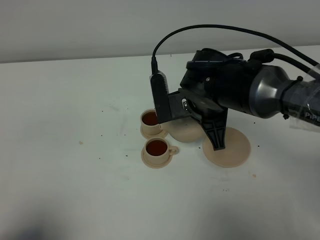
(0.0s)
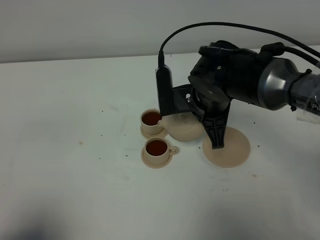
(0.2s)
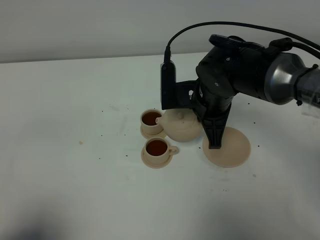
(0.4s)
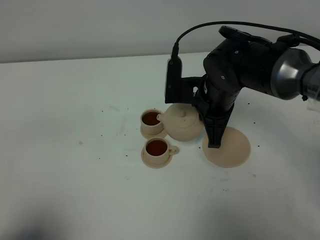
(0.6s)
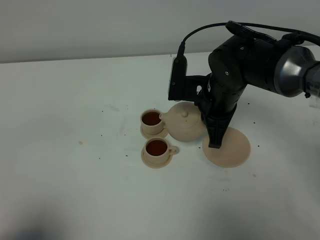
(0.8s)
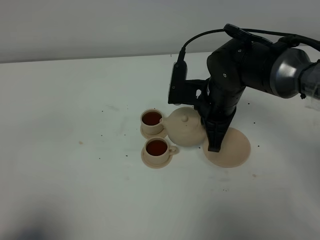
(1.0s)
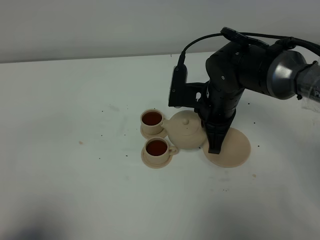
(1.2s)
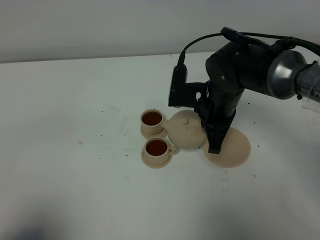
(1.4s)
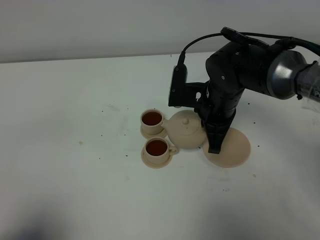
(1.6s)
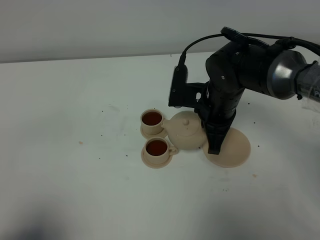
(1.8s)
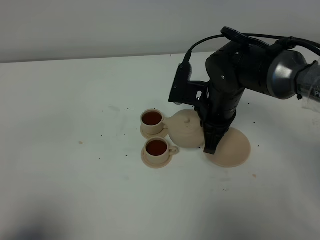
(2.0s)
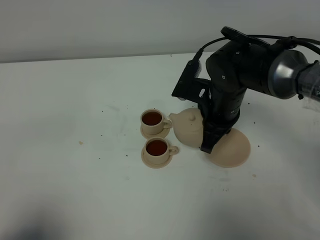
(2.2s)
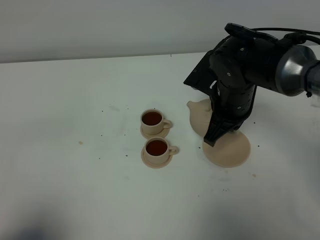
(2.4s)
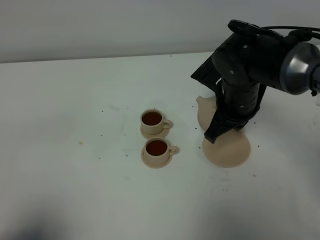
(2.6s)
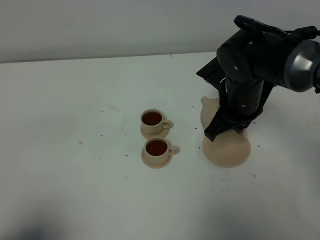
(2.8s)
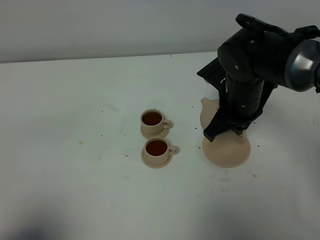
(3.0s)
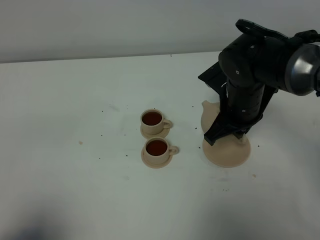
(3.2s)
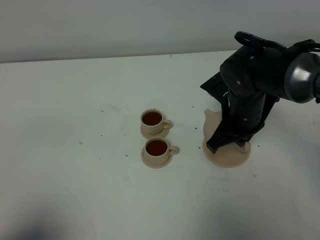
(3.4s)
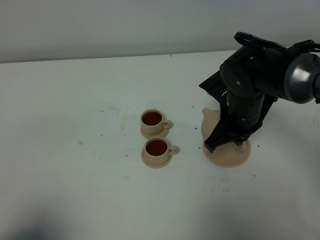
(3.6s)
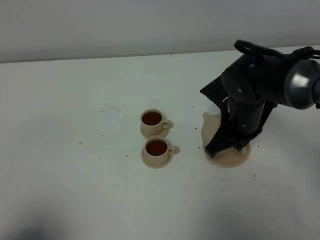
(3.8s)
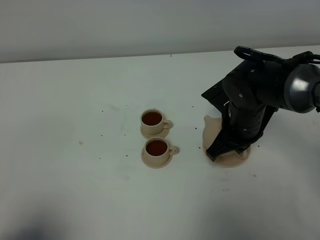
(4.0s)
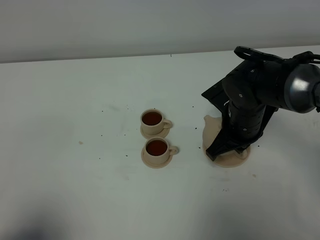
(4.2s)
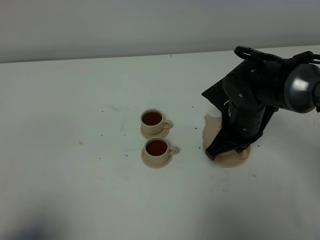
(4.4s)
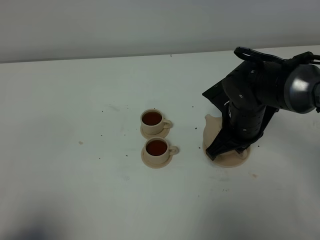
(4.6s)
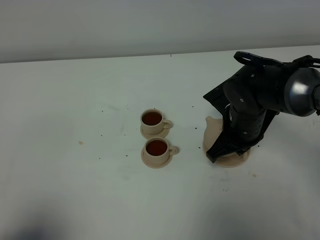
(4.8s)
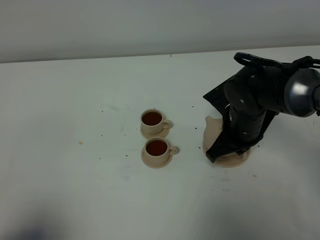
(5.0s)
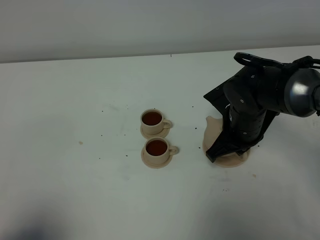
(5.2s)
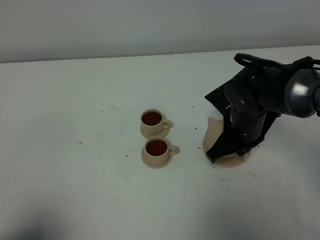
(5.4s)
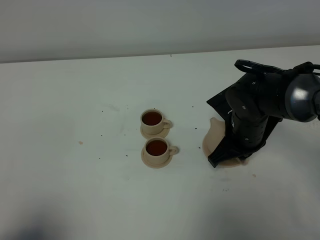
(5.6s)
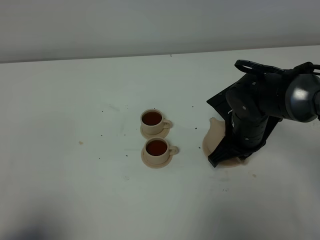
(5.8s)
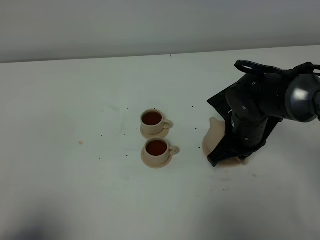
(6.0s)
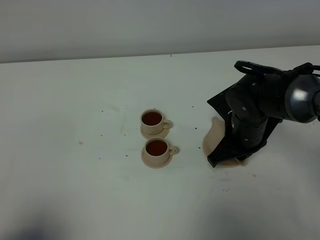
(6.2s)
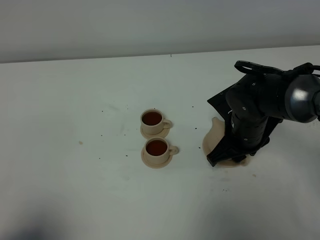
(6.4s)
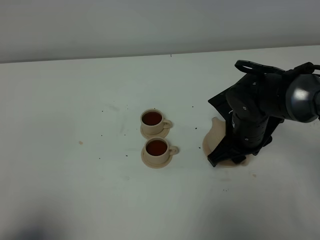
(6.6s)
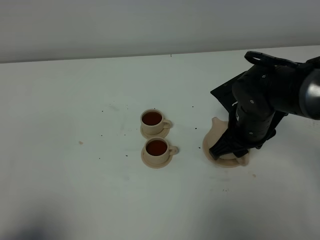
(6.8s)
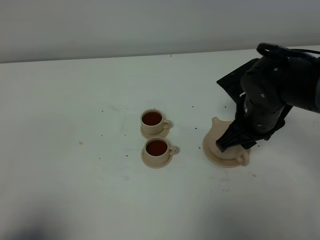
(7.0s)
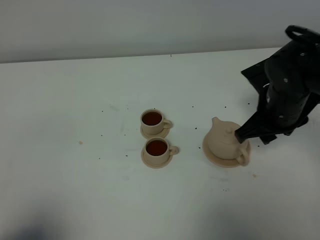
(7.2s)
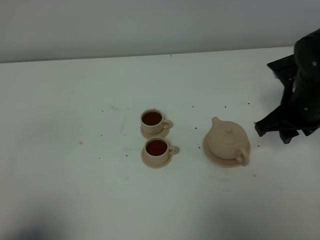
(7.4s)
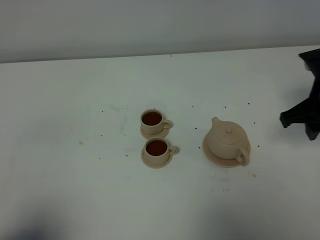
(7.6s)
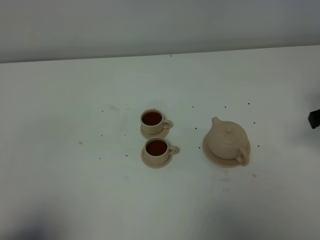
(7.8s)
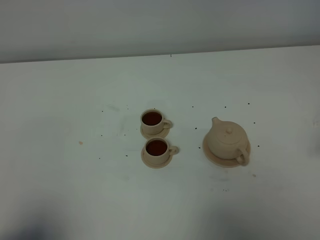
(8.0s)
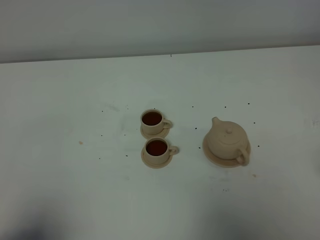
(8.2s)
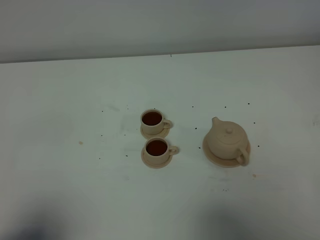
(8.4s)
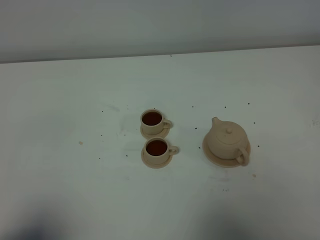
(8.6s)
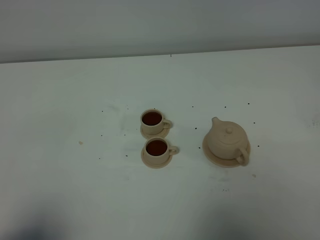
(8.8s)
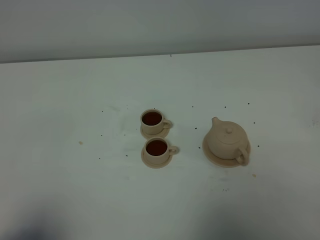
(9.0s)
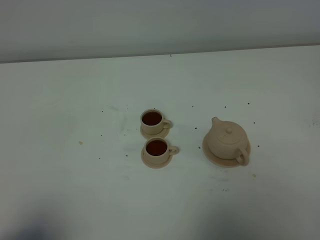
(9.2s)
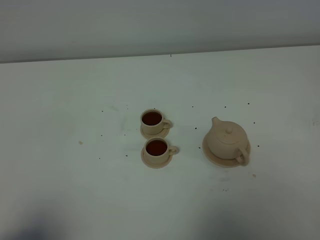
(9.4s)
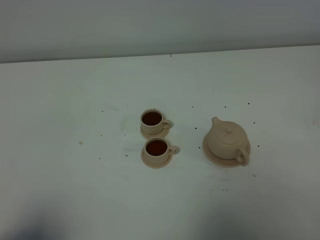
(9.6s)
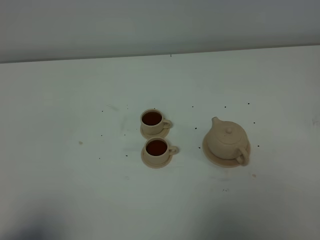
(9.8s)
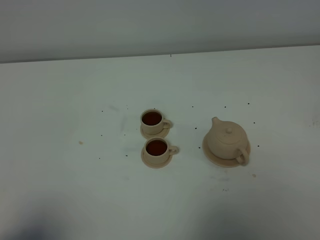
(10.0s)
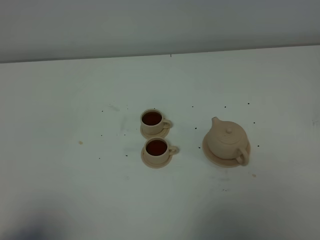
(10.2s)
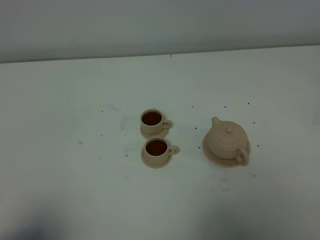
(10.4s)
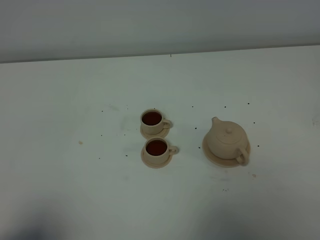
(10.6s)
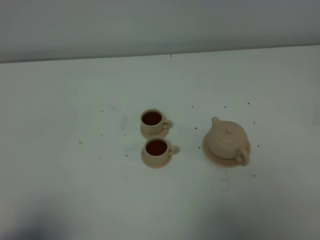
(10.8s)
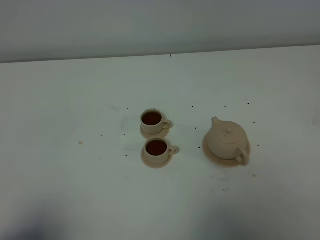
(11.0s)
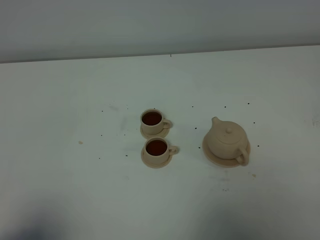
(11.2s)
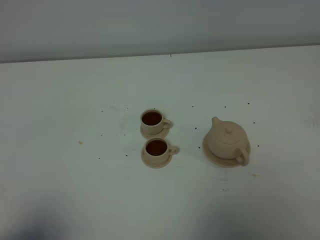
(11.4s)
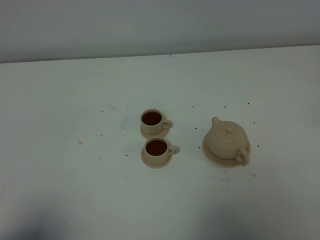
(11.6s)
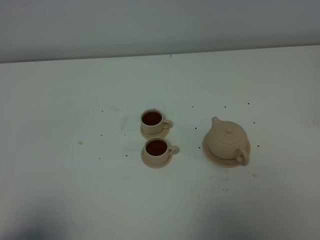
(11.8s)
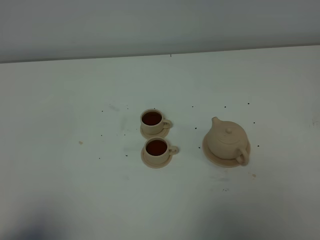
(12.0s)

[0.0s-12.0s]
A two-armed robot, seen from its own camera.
Task of the whole recording: grasp the brown teapot and pour the tea into the two brown teacups one by one, put the brown teapot back in its original place.
3.0s to 4.4s: The grippers stay close to where they were, moving slightly.
4.4s to 6.0s: The grippers move only a little.
6.0s to 7.6s: The right gripper shifts some 15 cm to the right and upward, and opens up.
7.6s to 9.0s: The right gripper travels backward by roughly 25 cm.
10.4s to 12.0s: Both grippers stay about where they are.

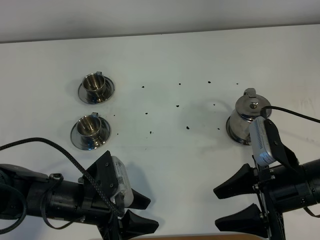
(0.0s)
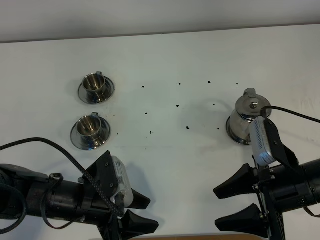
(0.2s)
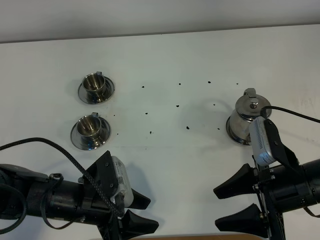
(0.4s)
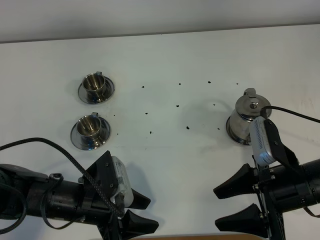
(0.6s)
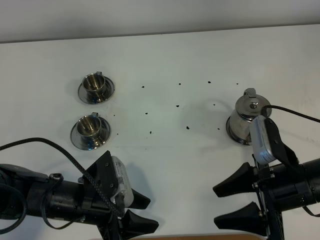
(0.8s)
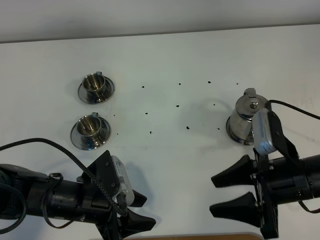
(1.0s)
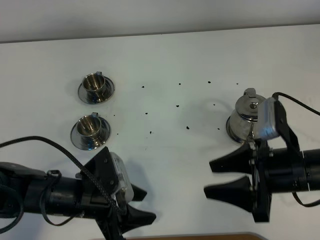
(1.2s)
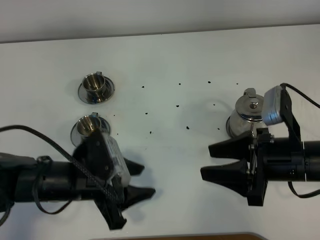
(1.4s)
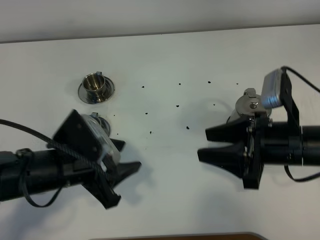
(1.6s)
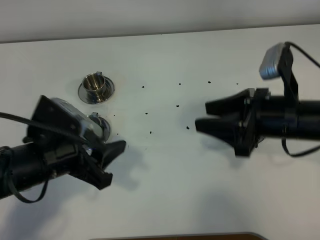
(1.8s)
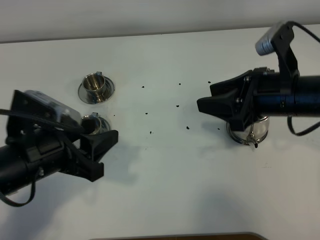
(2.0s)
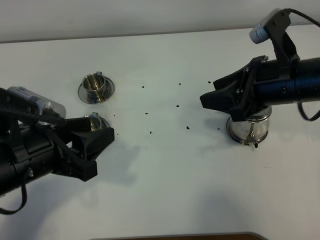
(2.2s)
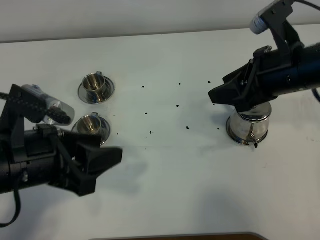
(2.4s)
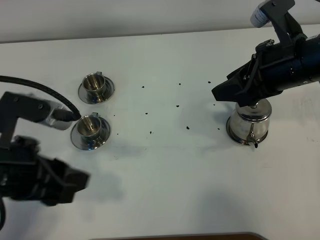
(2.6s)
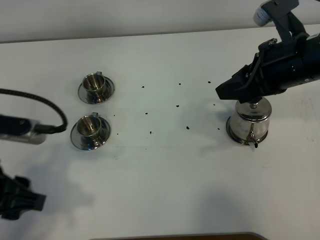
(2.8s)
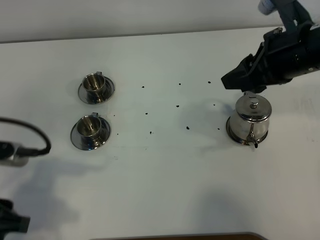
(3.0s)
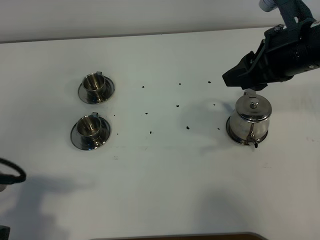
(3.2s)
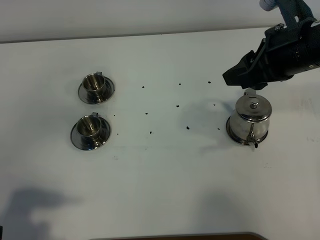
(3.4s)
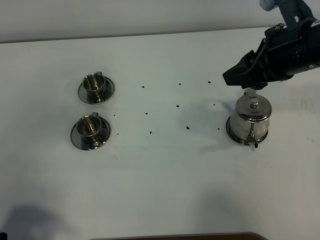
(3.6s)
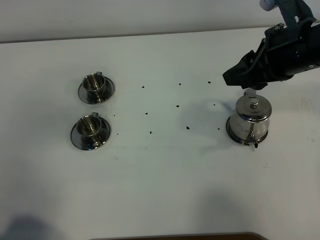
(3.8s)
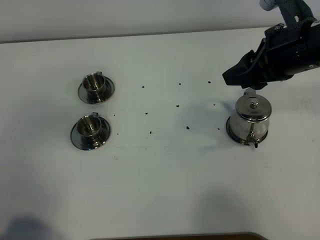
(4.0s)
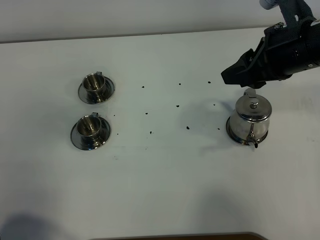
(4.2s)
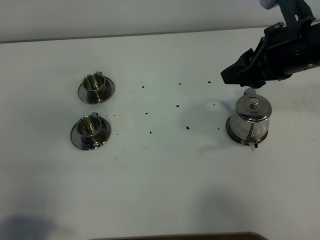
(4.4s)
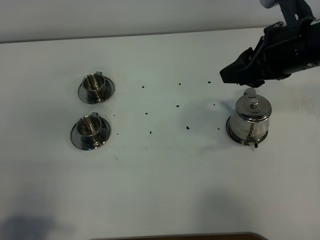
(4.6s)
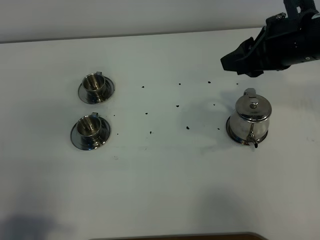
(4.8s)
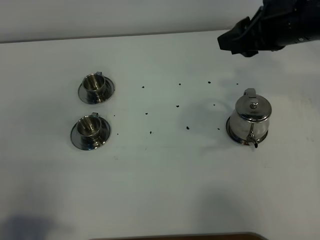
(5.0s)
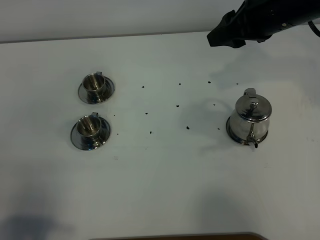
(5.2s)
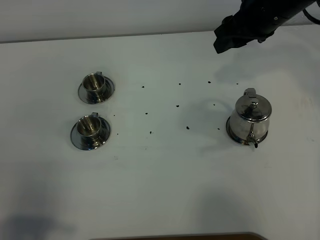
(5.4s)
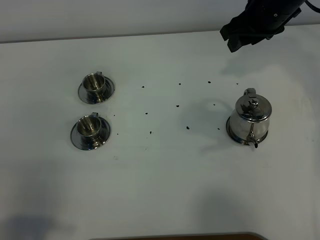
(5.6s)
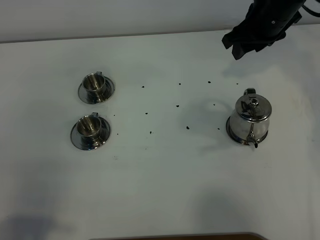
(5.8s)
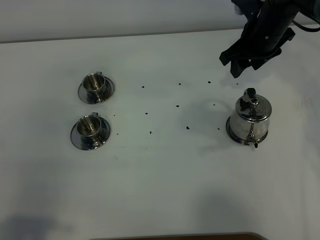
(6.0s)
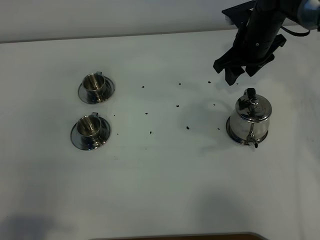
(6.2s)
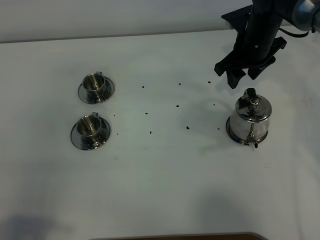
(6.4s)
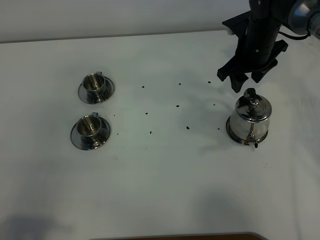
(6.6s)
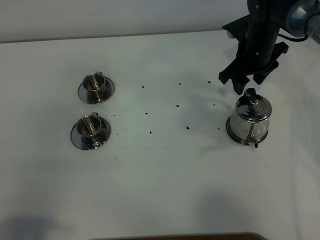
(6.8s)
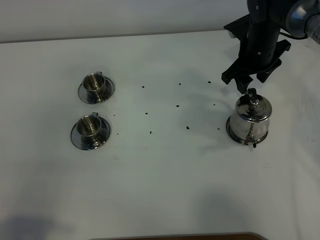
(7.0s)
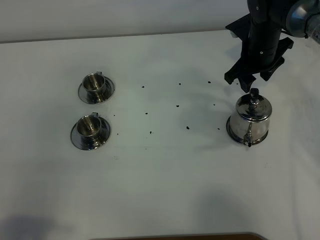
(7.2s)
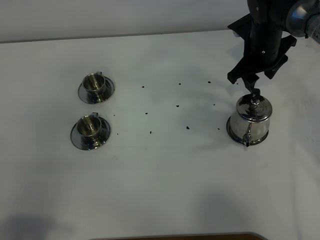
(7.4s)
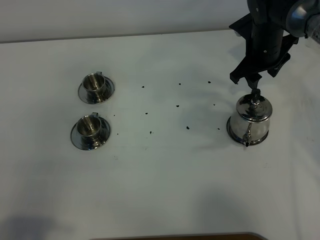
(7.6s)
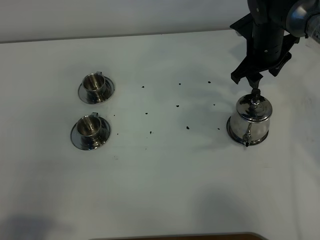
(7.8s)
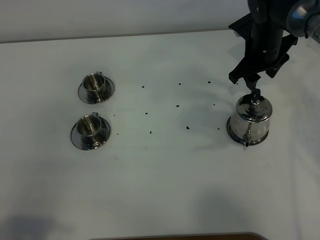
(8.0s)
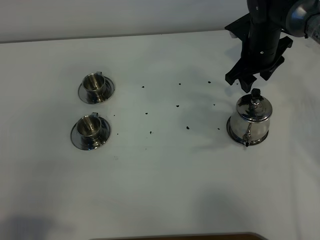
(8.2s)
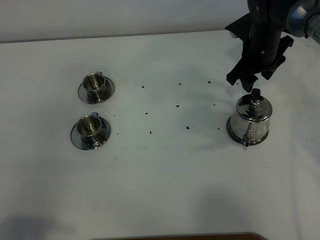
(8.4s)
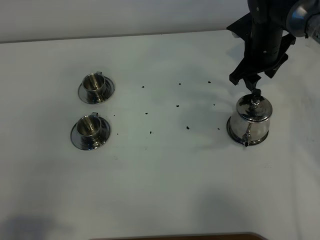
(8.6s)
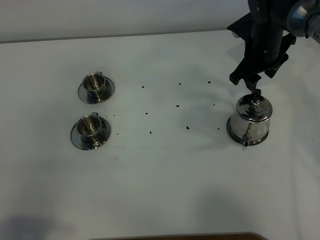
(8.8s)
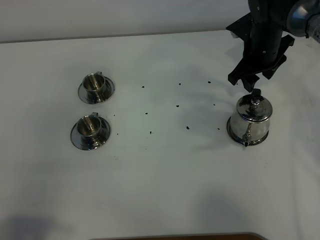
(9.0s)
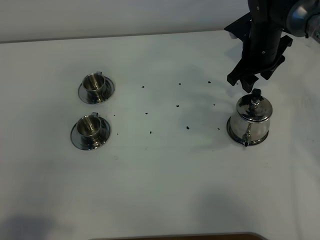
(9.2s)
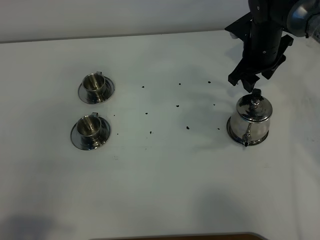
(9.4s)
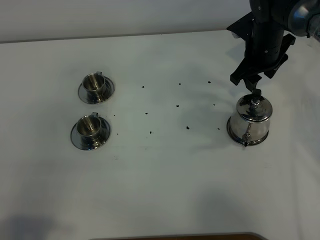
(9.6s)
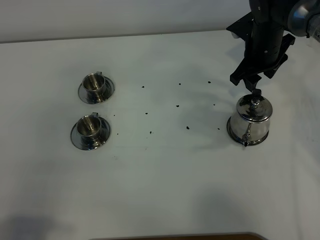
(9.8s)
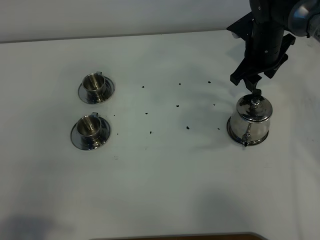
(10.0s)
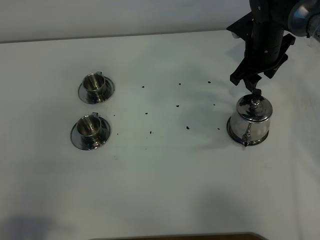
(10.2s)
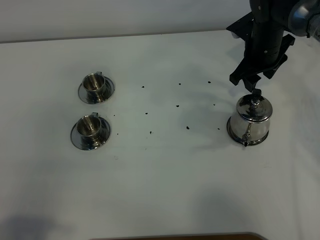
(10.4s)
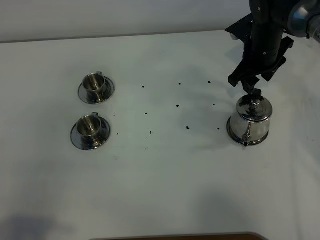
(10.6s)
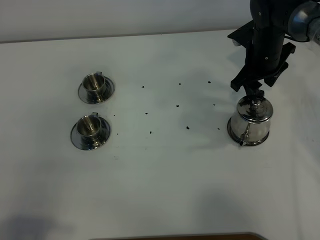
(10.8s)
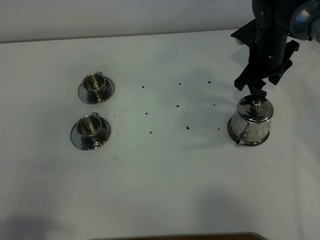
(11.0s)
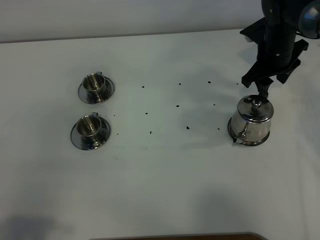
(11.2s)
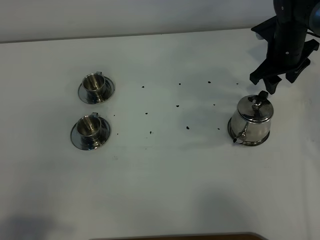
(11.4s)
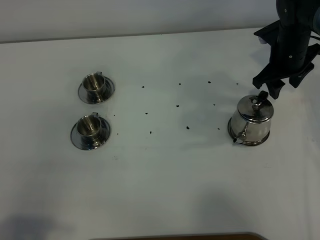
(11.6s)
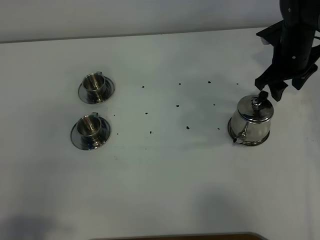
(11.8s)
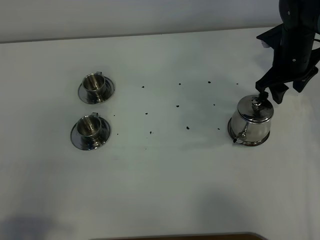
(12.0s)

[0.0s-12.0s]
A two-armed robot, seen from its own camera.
Task of the whole recording: grasp the stainless steel teapot and pour the tea into the two stainless steel teacups one by one, put the stainless steel teapot back in its original place.
0.0s to 1.6s: The left gripper moves upward, some 5 cm, while the right gripper moves approximately 5 cm.
1.6s to 3.0s: The right gripper heads upward and forward, covering approximately 15 cm; the left gripper shifts some 15 cm to the left, backward and upward.
3.0s to 4.4s: The left gripper travels backward by some 10 cm.
4.4s to 6.0s: The right gripper shifts roughly 15 cm forward and downward.
6.0s to 7.6s: The grippers stay close to where they were, moving slightly.
7.6s to 9.0s: Neither gripper changes place.
9.0s to 10.4s: Both grippers stay about where they are.
10.4s to 12.0s: The right gripper goes about 5 cm to the right.
